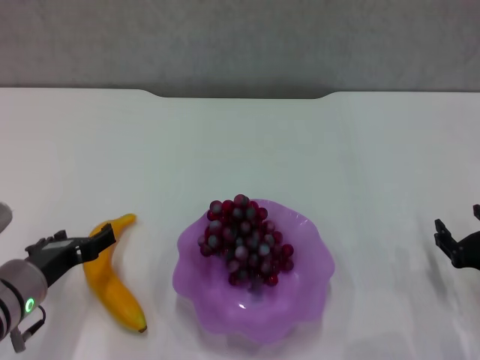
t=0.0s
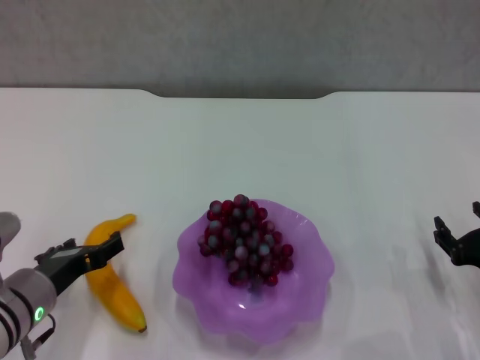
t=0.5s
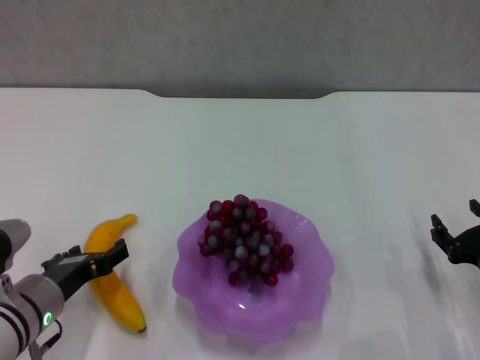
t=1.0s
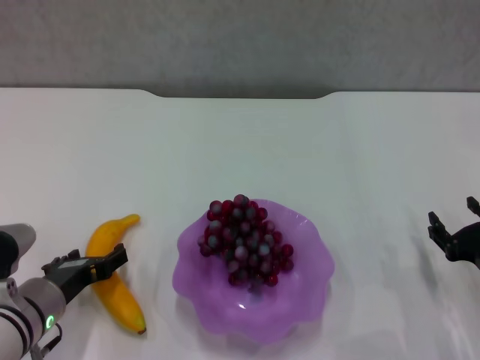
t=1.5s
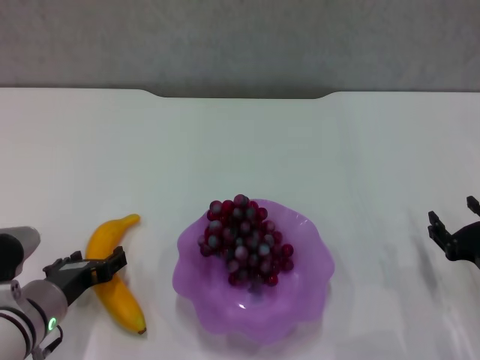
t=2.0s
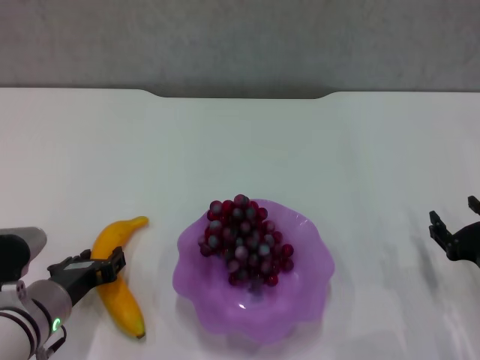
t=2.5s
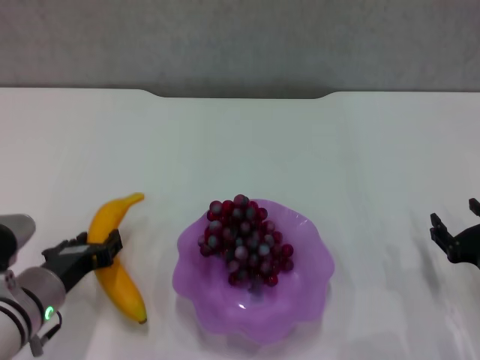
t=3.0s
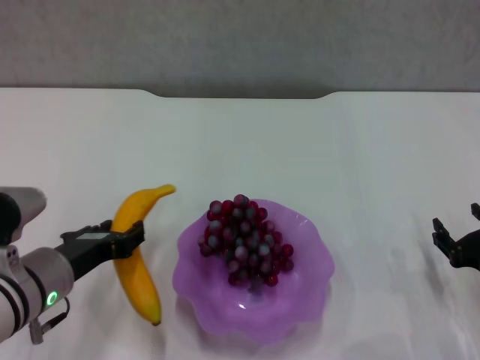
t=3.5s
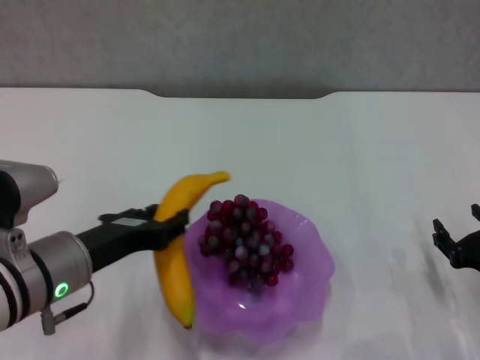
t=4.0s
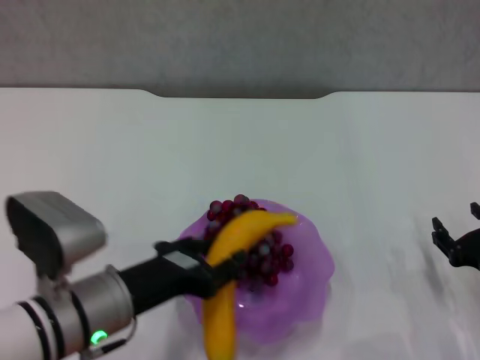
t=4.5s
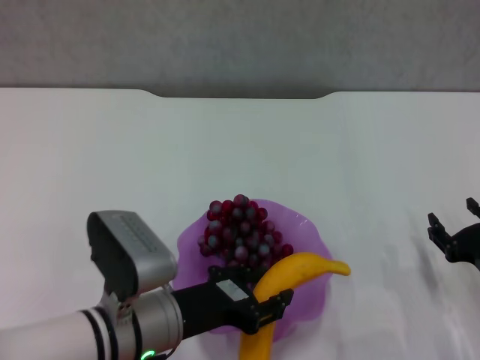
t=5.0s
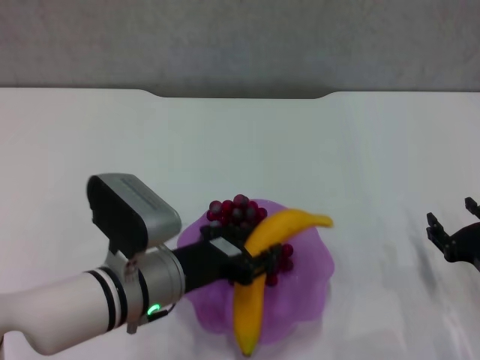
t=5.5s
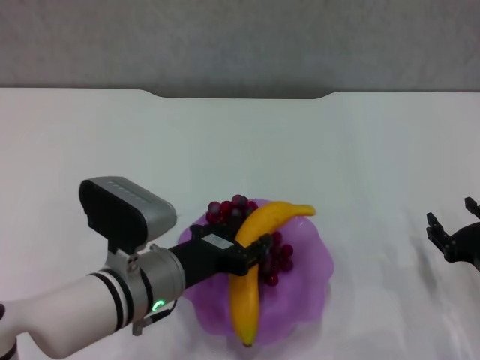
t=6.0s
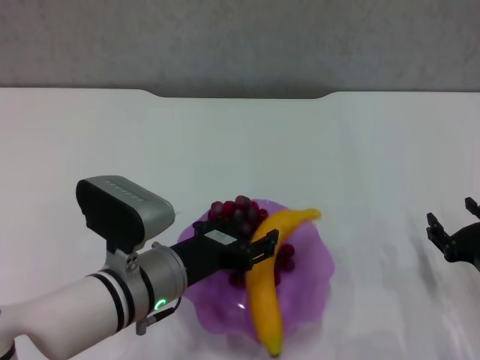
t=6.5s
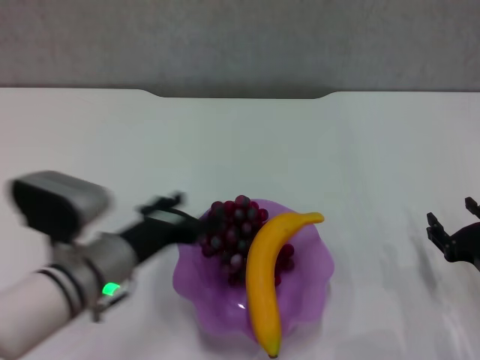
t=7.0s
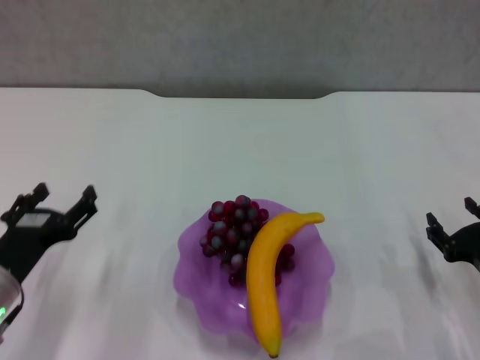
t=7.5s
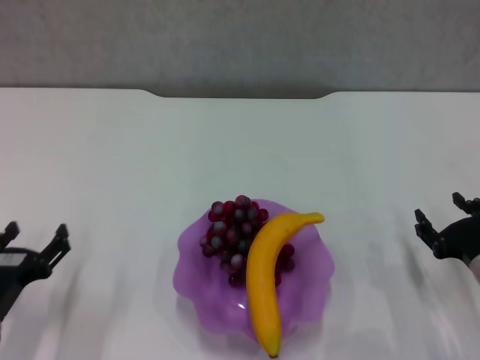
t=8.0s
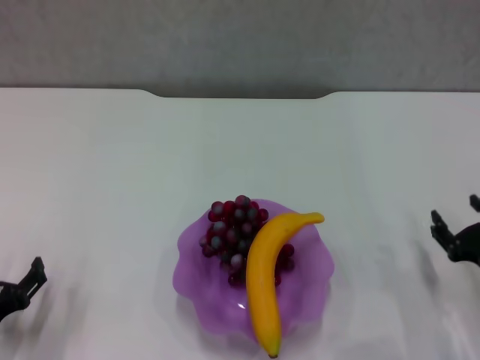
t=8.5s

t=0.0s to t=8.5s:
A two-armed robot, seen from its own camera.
Step, t=0.0s to t=2.0s: Grasp the banana with left gripper.
Step, t=2.5s to t=7.0s: Place the banana in the purple plate with left gripper.
t=0.0s to t=2.0s: The grippers move only a little.
t=2.0s to t=4.0s: The left gripper travels upward by some 10 cm, and closes up.
t=4.0s to t=6.5s: The left gripper shifts some 10 cm to the right.
t=6.5s to t=8.5s: The left gripper shifts approximately 20 cm to the left and downward, and opens up.
